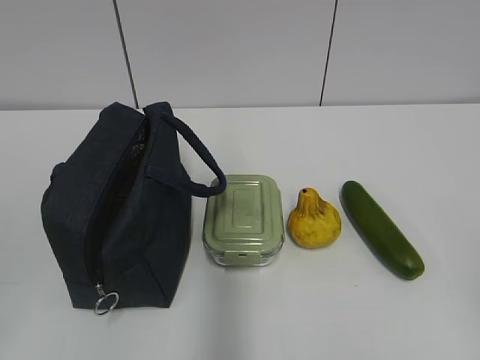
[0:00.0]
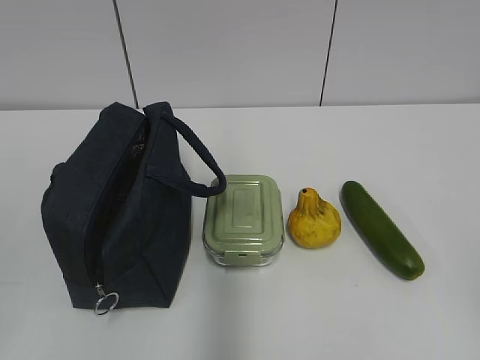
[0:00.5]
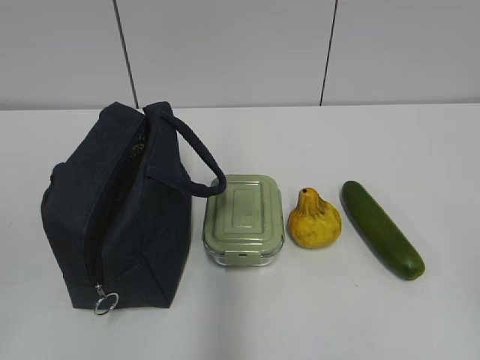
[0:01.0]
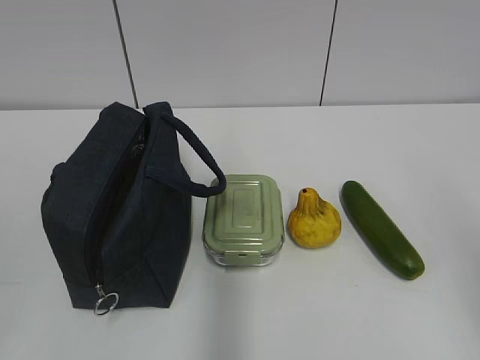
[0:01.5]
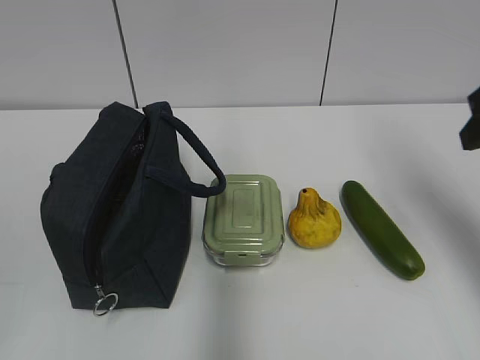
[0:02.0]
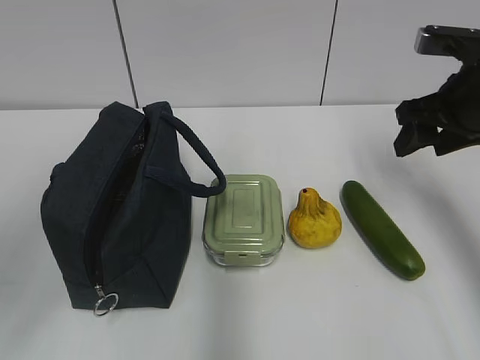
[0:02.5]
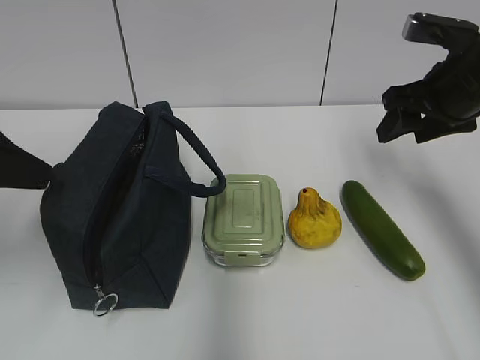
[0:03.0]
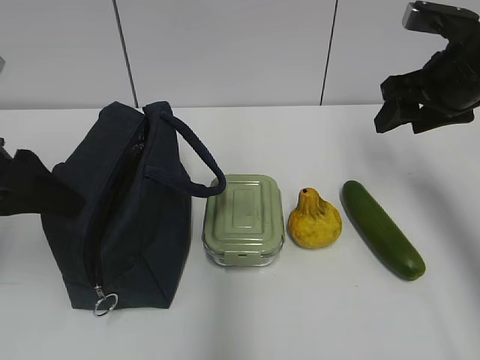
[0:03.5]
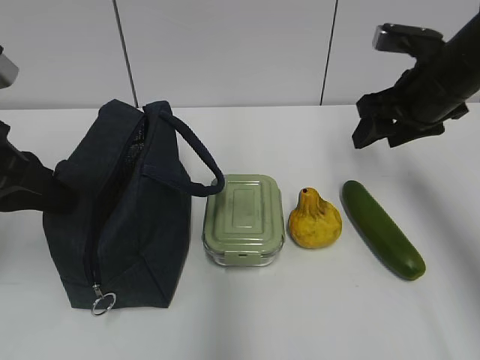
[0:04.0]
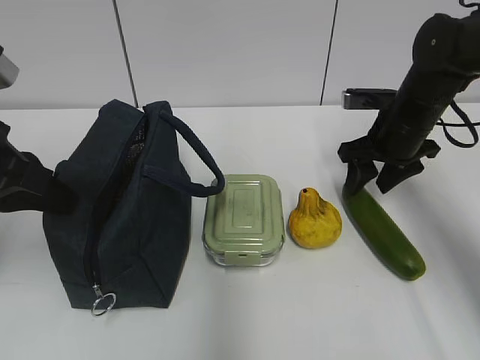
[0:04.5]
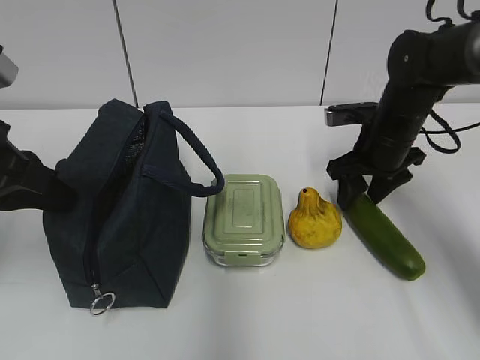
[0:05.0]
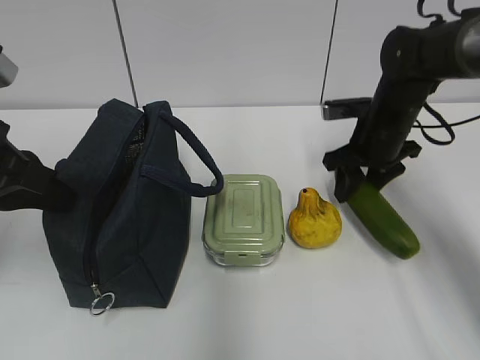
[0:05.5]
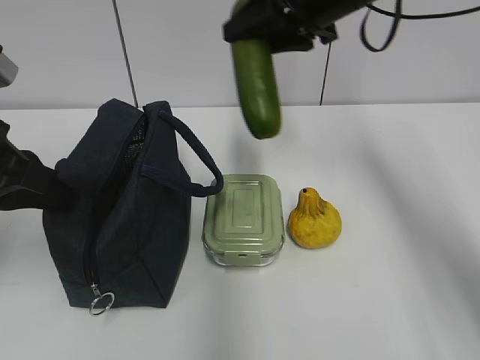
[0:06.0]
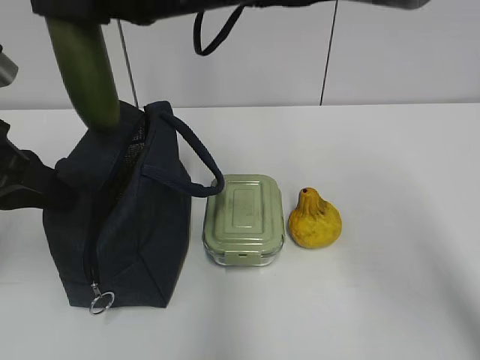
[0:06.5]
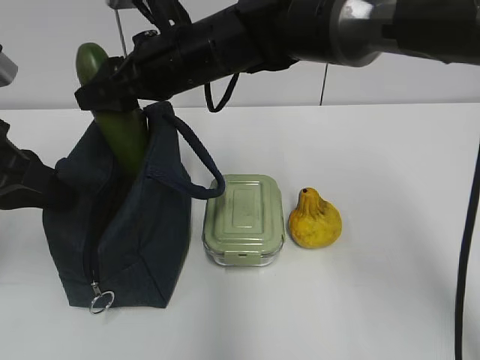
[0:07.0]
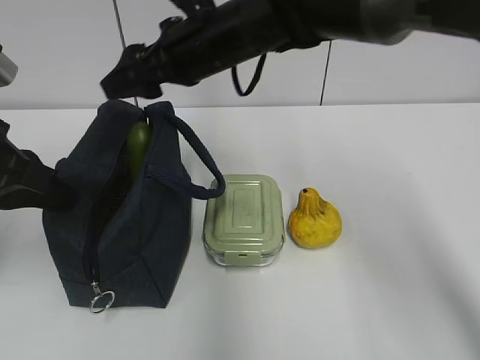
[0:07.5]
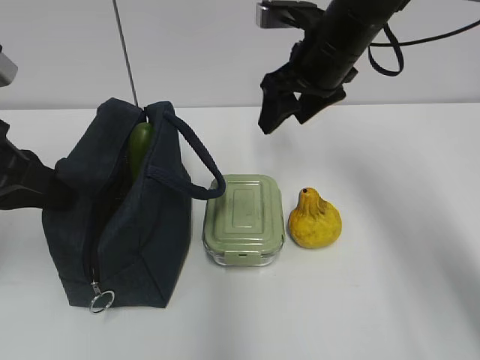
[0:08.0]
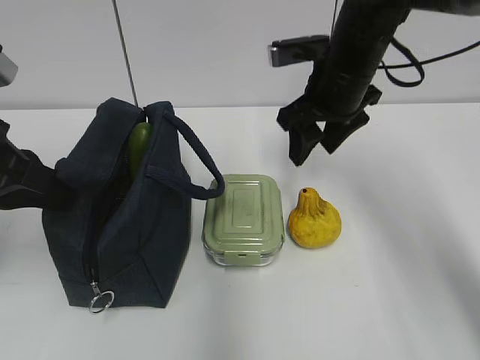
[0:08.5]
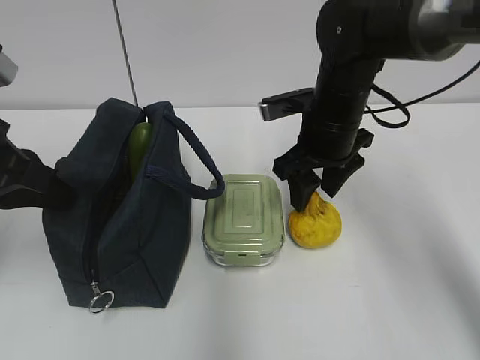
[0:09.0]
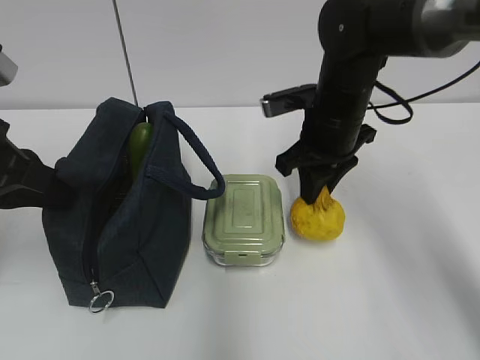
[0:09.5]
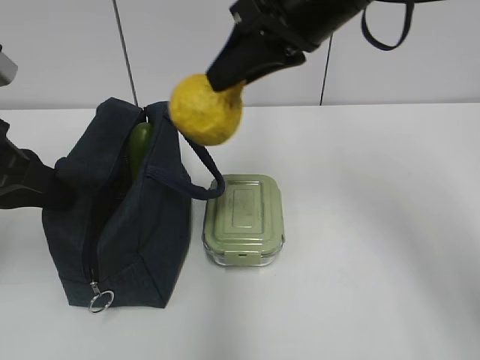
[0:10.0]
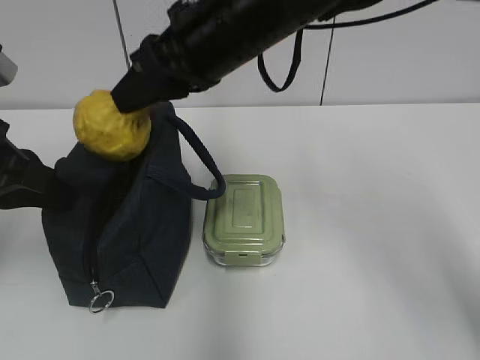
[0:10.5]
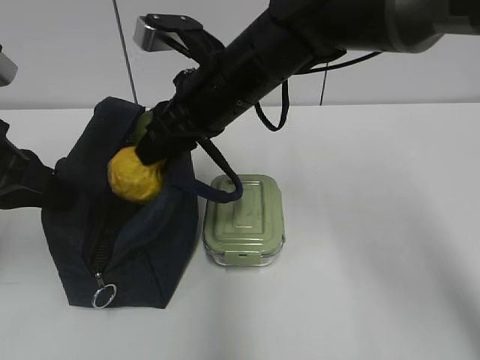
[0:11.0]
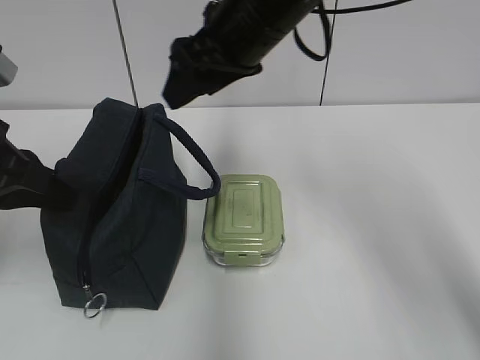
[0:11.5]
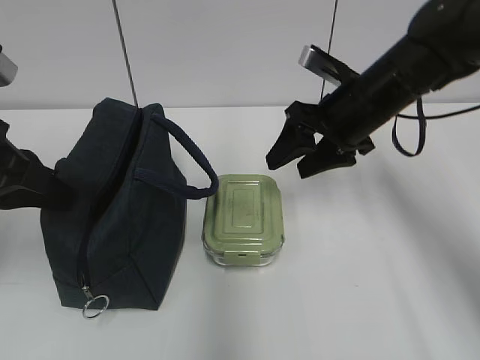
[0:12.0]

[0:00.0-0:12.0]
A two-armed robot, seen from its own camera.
0:02.0 to 0:04.0: The left gripper is displaced forward by about 25 cm, and closes its fingers; the right gripper is displaced forward and downward by some 15 cm.
0:04.0 to 0:06.0: The right gripper travels to the left and upward by some 15 cm.
0:06.0 to 0:08.0: The right gripper heads downward, covering approximately 5 cm, and travels to the left and back again, some 15 cm each way.
0:08.0 to 0:10.0: The right gripper travels upward and backward by roughly 10 cm, and closes up.
0:10.0 to 0:12.0: The right gripper is displaced downward and to the right by approximately 15 cm, and opens its fingers.

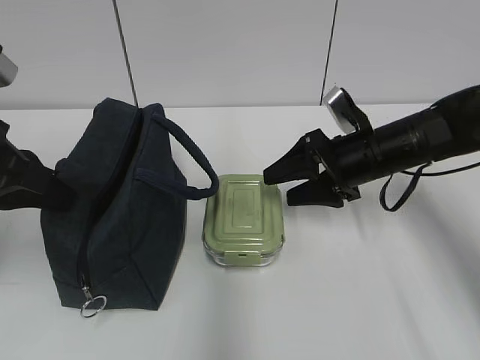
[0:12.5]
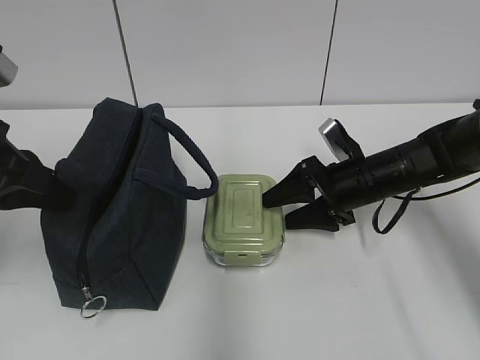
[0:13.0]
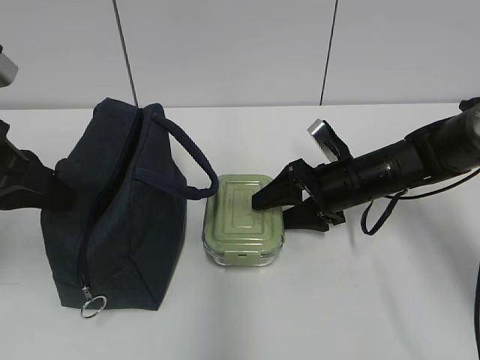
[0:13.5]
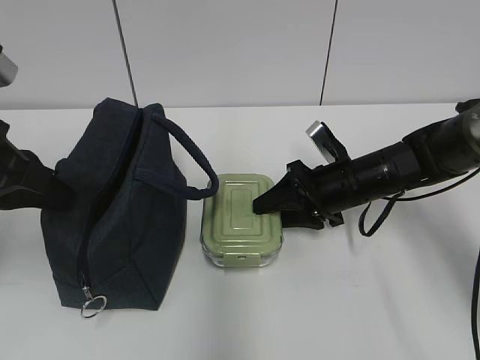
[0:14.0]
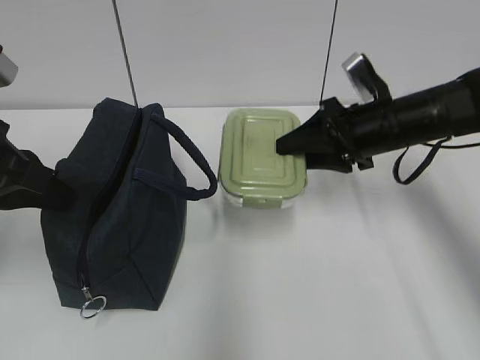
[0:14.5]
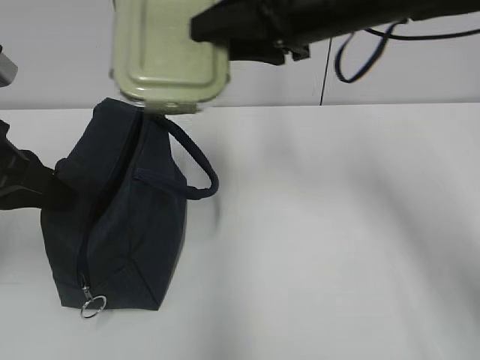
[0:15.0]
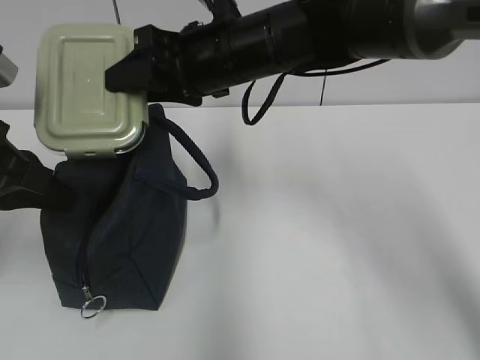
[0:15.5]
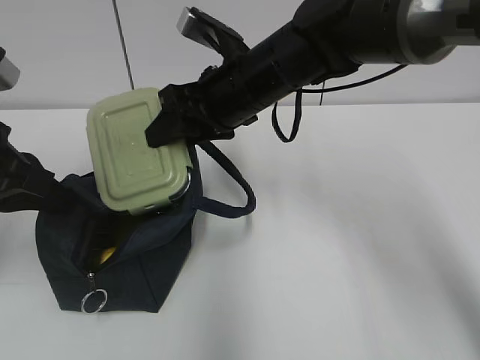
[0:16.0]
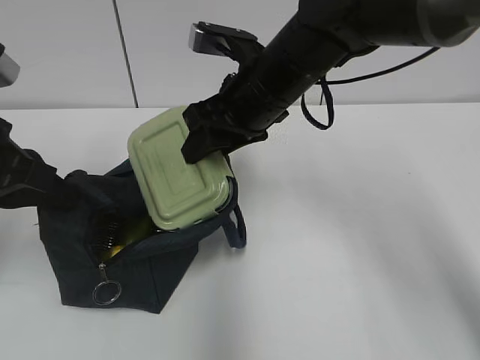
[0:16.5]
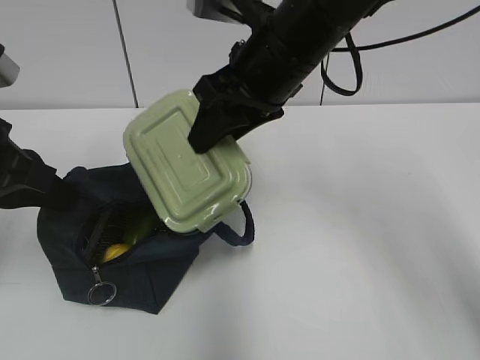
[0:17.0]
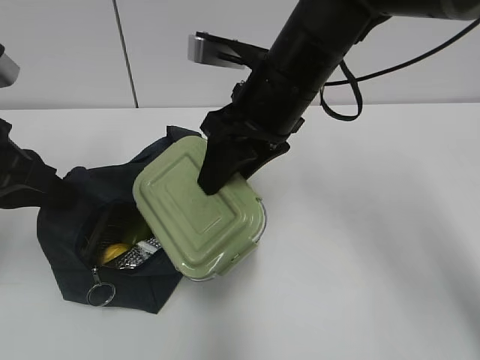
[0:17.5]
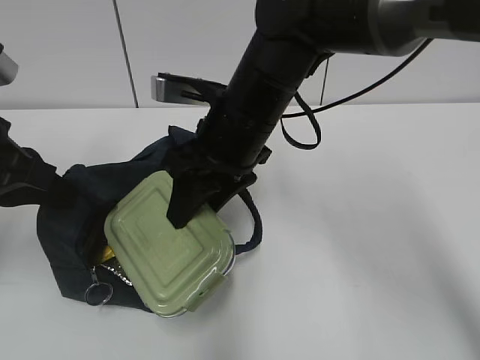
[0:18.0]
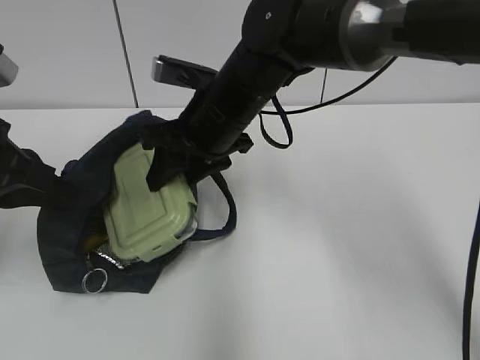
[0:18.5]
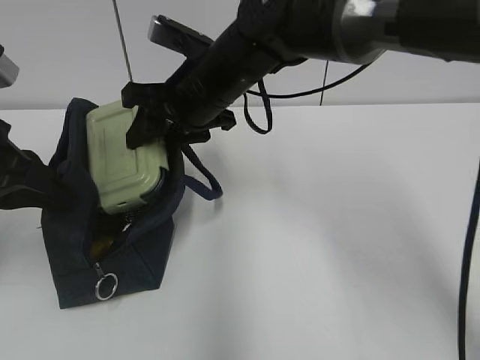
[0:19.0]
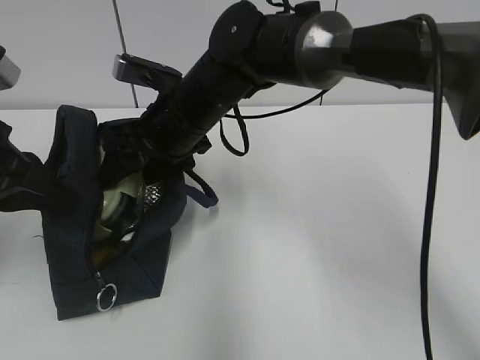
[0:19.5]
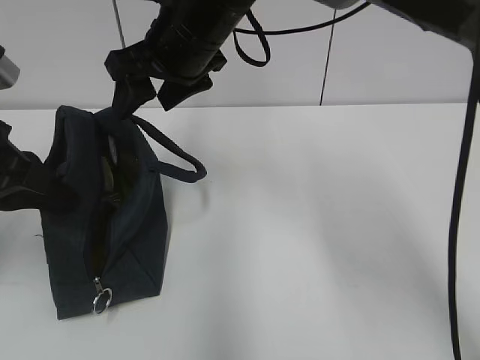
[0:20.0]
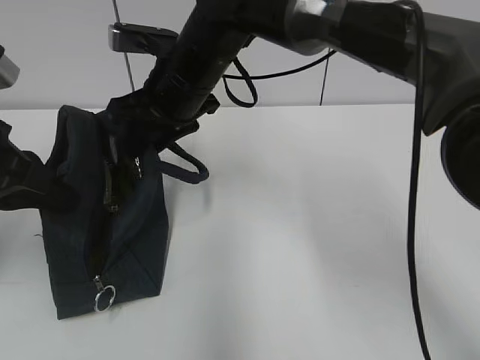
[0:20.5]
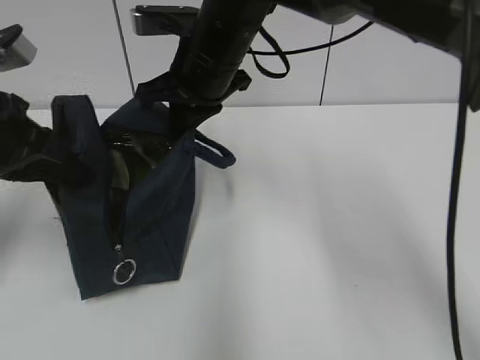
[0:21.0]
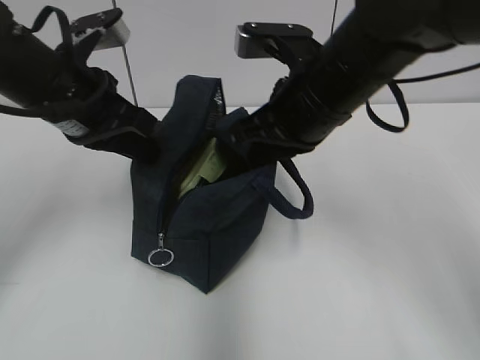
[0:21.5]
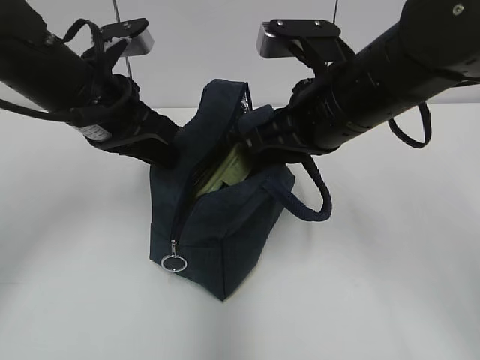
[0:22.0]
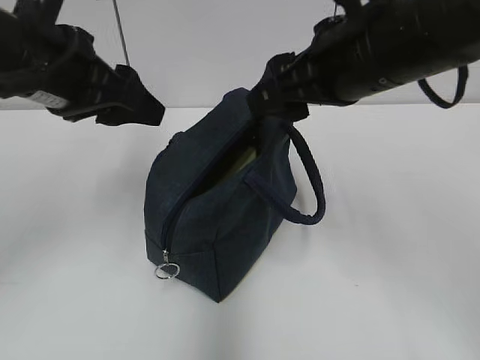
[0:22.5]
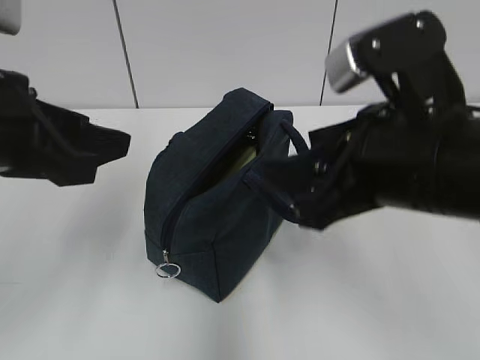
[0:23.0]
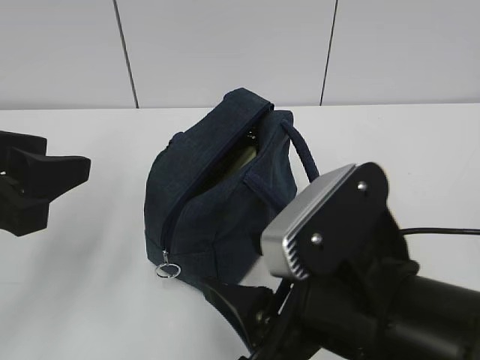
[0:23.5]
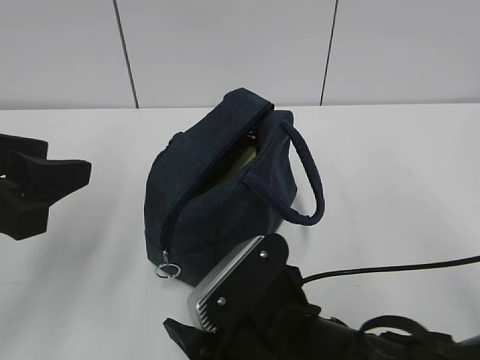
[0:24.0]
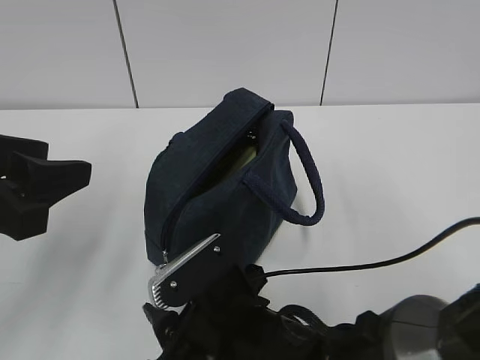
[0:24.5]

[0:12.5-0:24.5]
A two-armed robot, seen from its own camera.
0:12.5 to 0:14.5: The right gripper moves upward, some 5 cm, and closes.
0:14.5 to 0:16.5: The right gripper travels to the left and upward by roughly 15 cm.
0:16.5 to 0:18.5: The right gripper ends up about 5 cm from where it was.
0:18.5 to 0:20.5: The right gripper goes upward and returns, approximately 5 cm each way.
0:20.5 to 0:22.5: The left gripper goes roughly 5 cm to the right, and opens, while the right gripper heads to the right, backward and upward, covering about 20 cm, and opens up.
0:22.5 to 0:24.5: The left gripper is displaced backward by roughly 10 cm, while the right gripper shifts some 25 cm downward, to the left and backward.

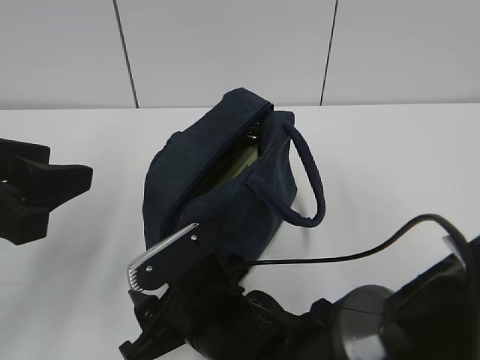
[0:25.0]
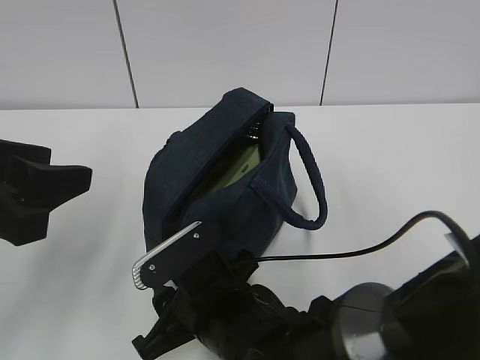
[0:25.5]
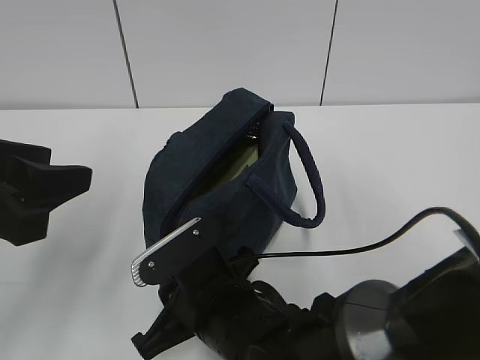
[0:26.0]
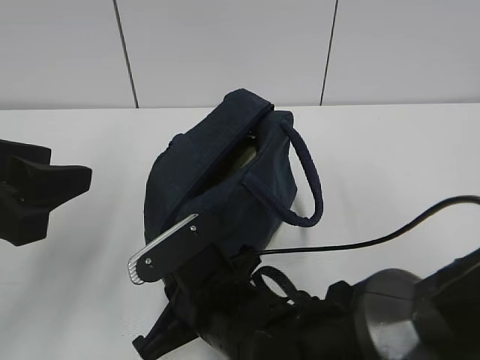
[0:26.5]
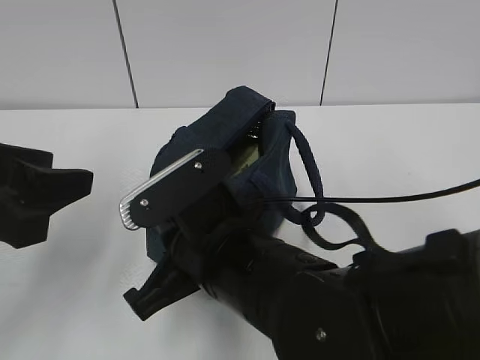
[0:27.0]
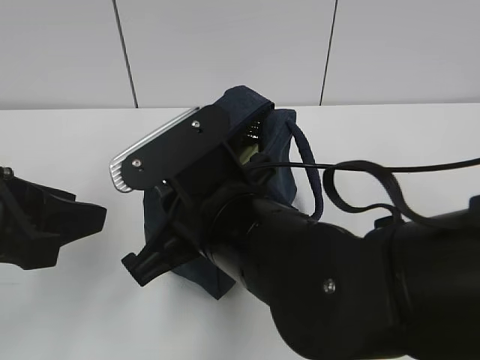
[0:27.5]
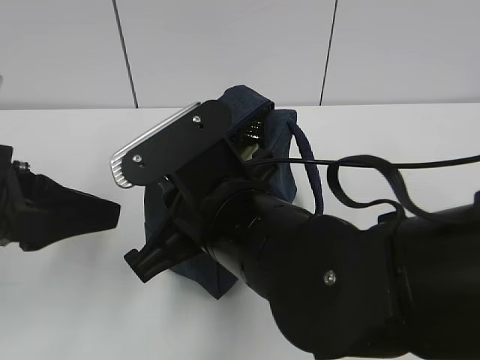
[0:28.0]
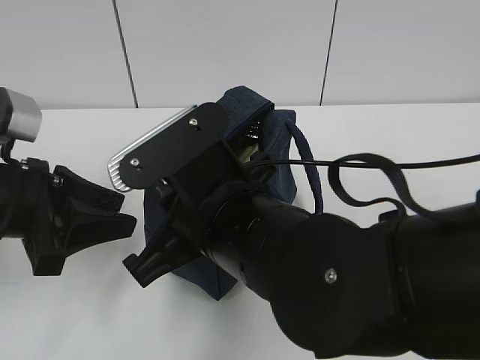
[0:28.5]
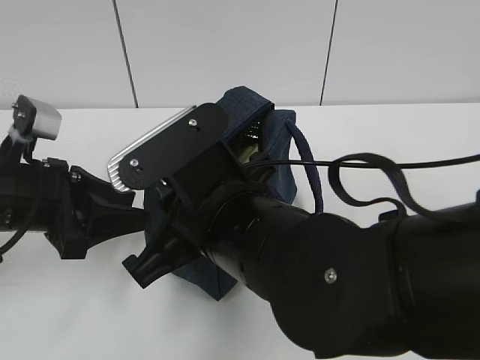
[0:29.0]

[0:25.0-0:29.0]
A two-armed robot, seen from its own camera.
0:25.0 to 0:27.0: The right gripper moves upward, some 10 cm, and closes up.
0:27.0 to 0:29.0: The left gripper travels forward and downward by roughly 10 cm.
